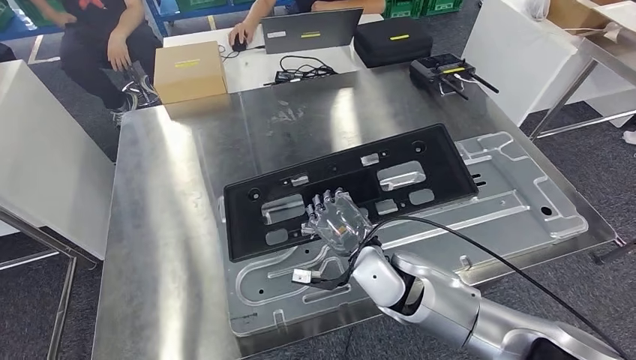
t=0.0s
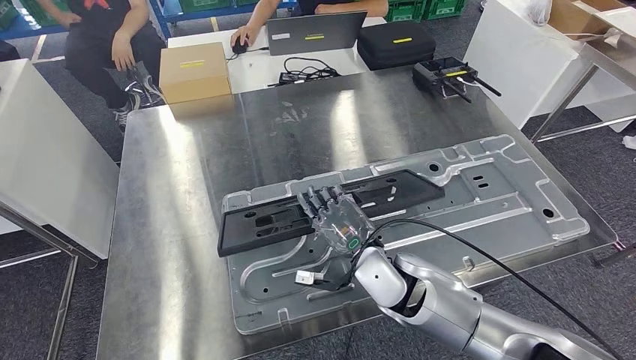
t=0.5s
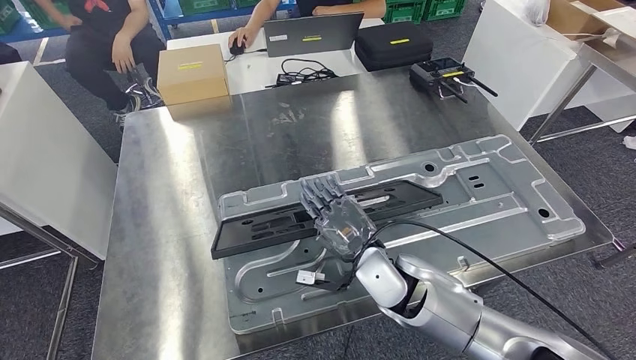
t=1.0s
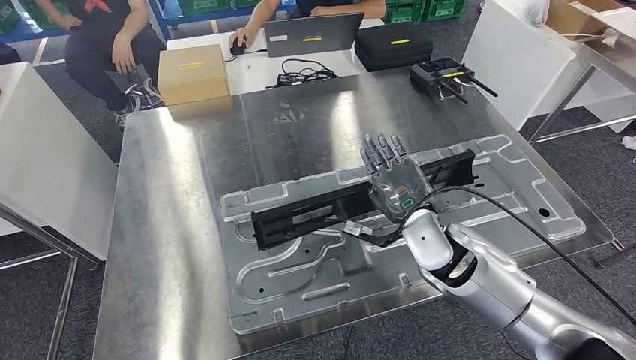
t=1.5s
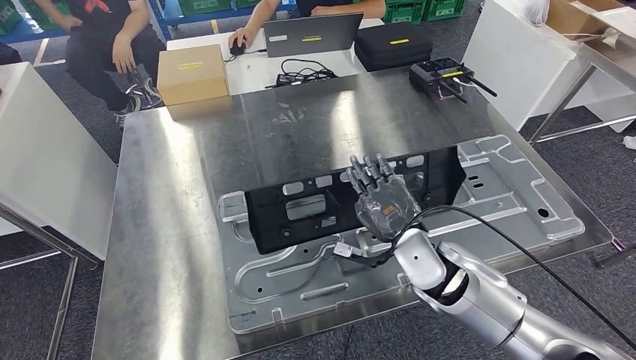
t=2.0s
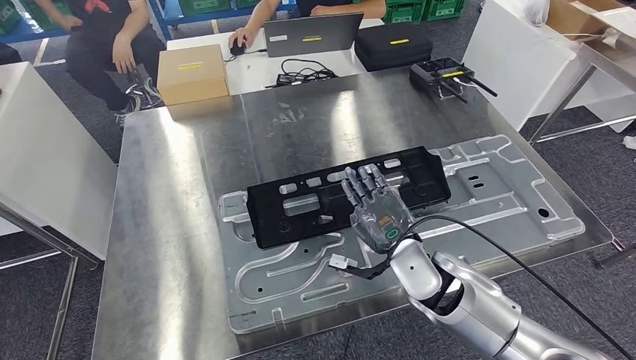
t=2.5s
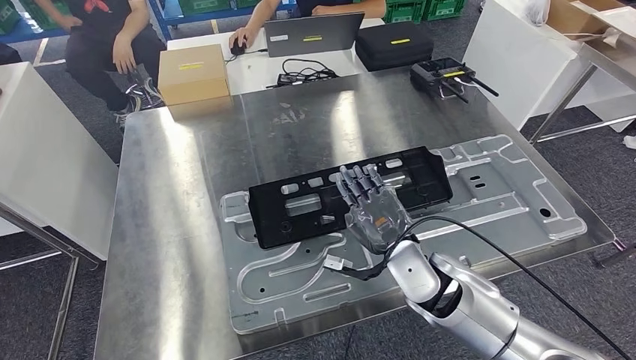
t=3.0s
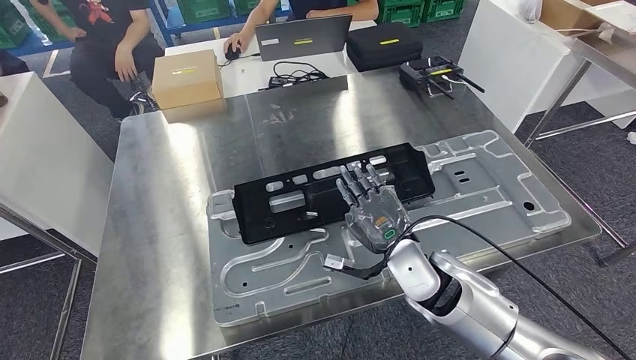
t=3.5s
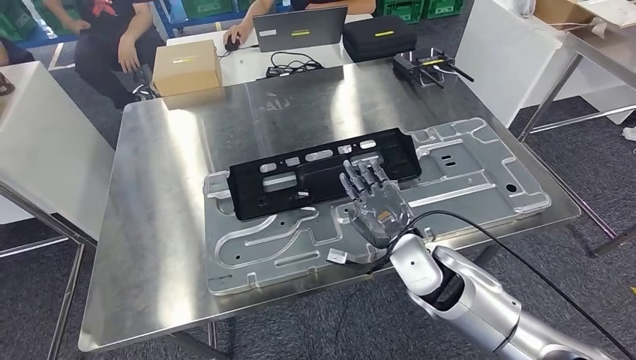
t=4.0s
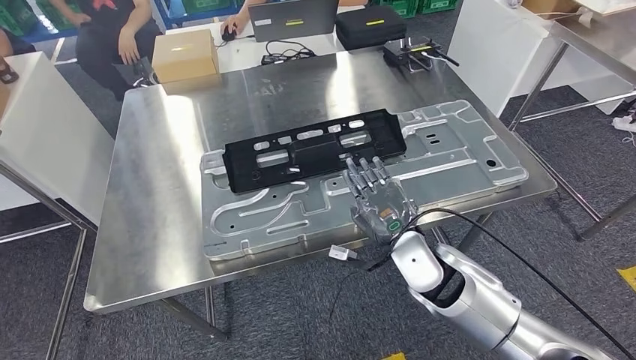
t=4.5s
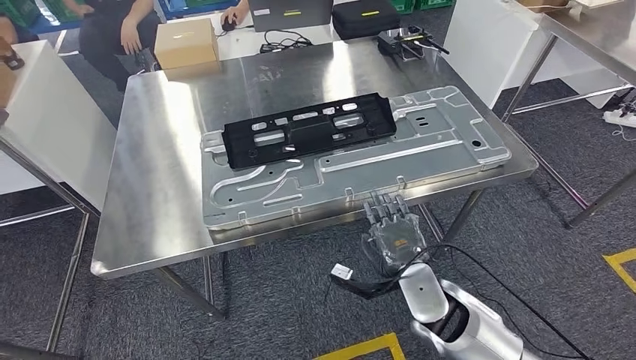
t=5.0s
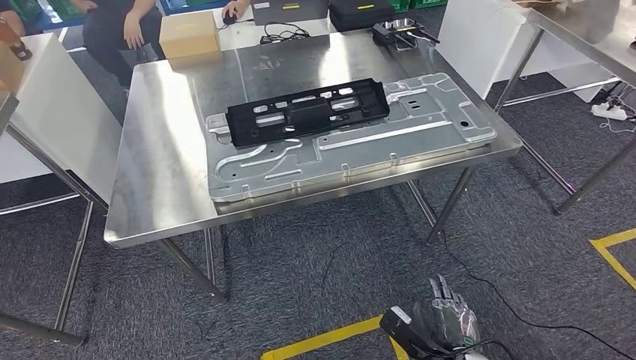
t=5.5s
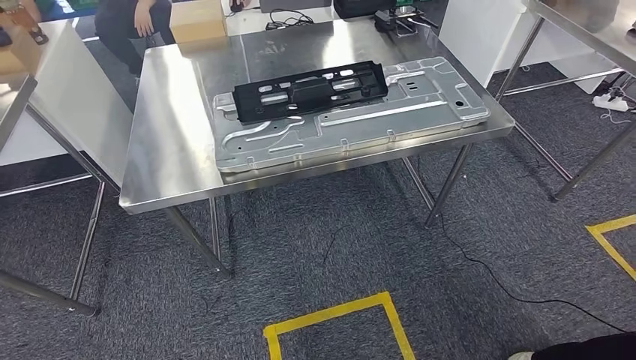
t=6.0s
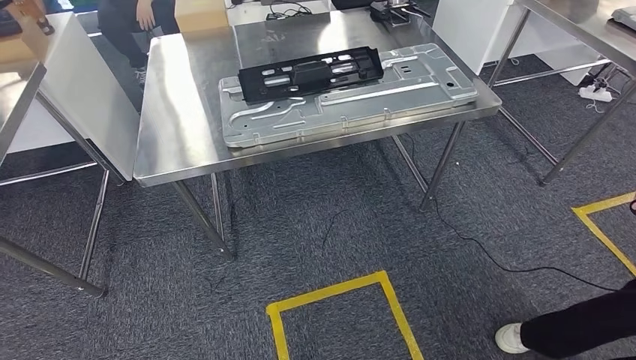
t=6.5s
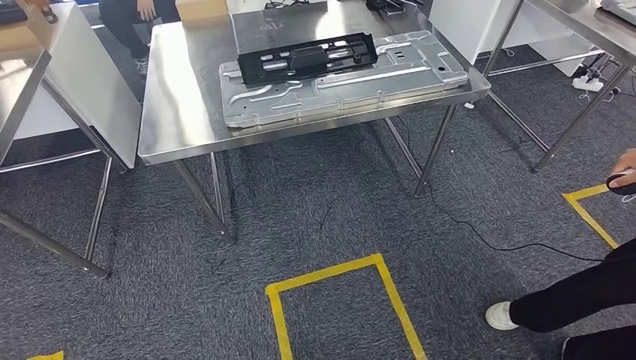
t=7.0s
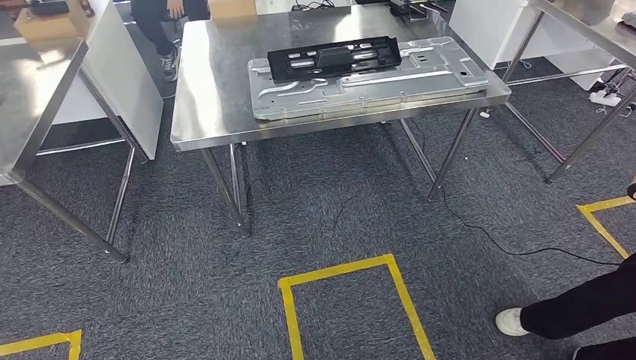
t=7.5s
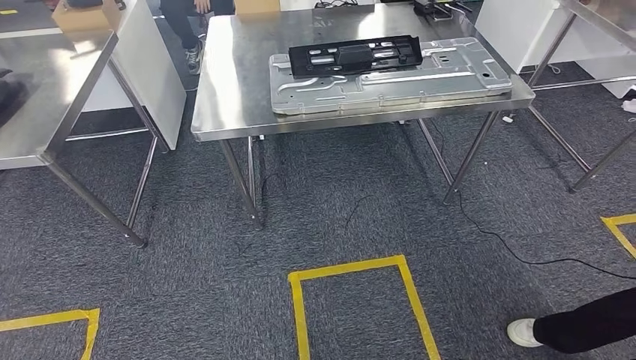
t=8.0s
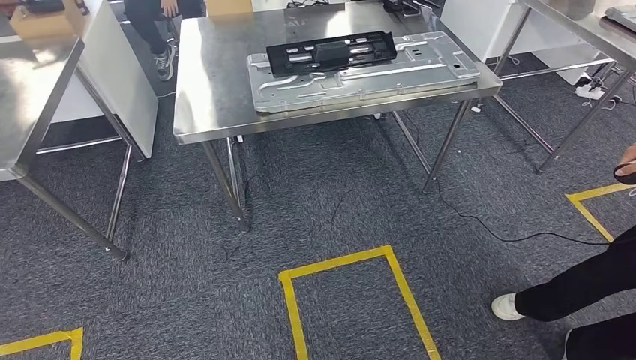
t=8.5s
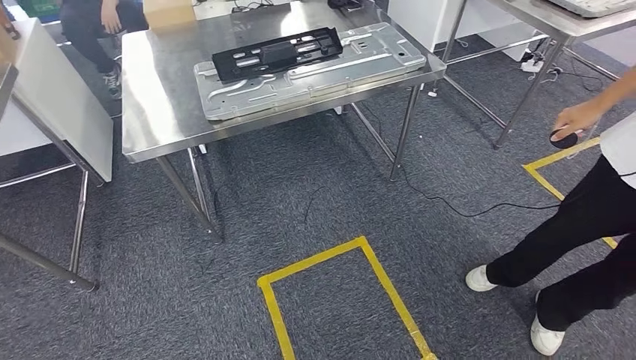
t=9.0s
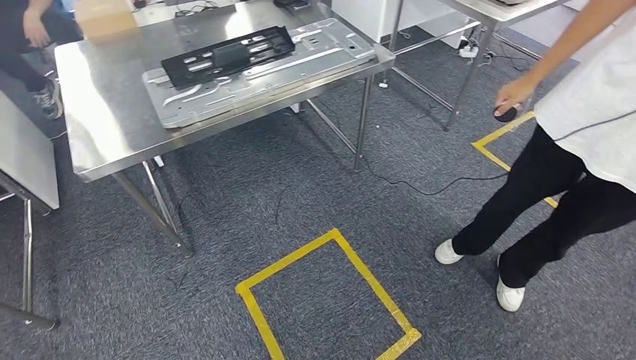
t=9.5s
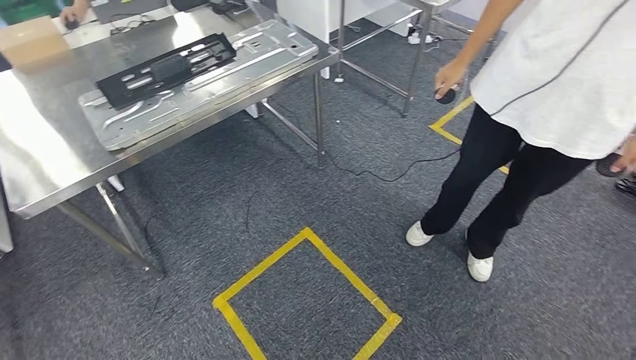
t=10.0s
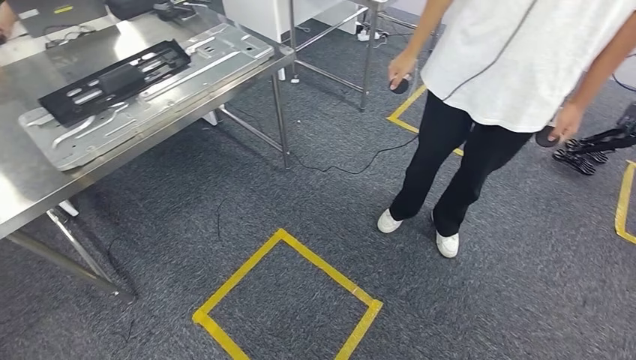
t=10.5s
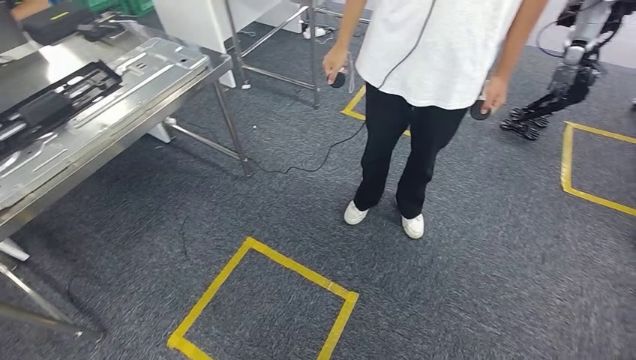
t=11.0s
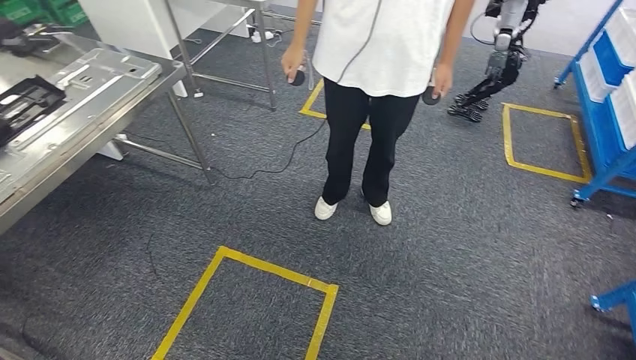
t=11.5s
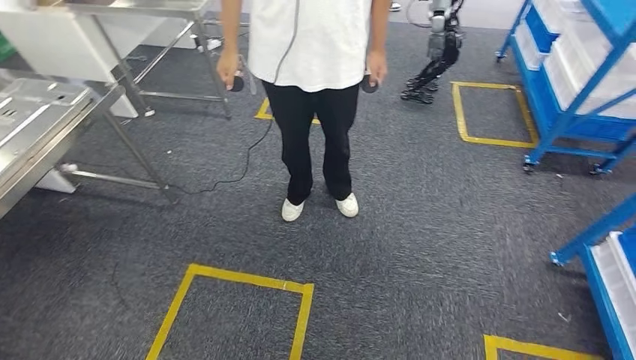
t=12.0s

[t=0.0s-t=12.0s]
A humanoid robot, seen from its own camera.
Step, t=0.0s to t=6.0s: Insert the large material into the corresponding hole on the workbench.

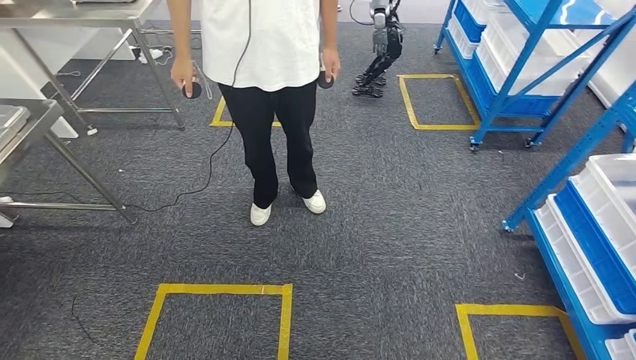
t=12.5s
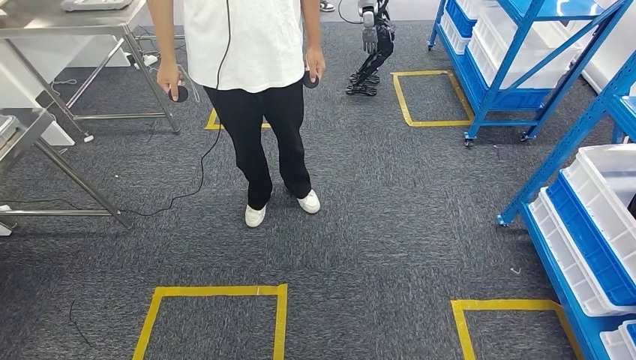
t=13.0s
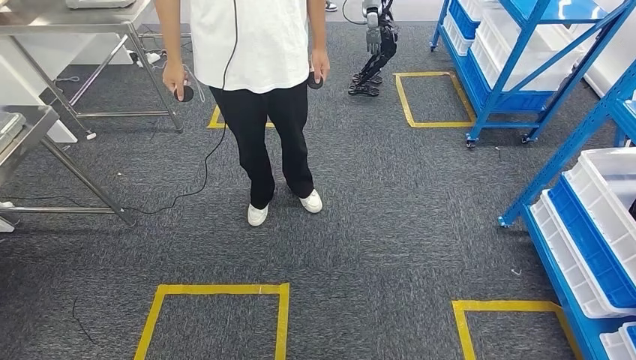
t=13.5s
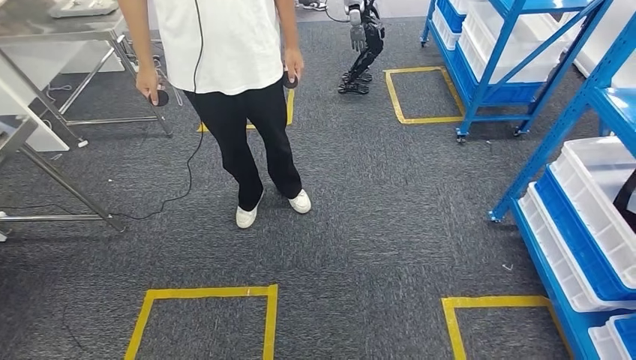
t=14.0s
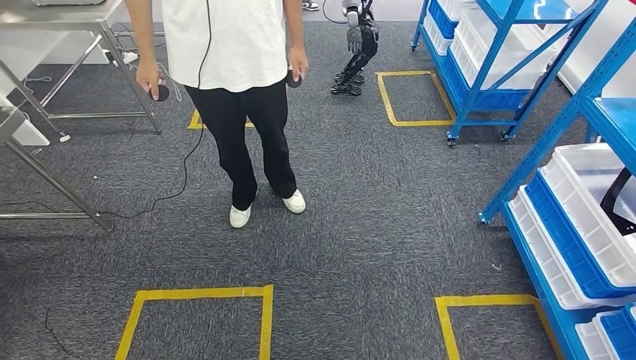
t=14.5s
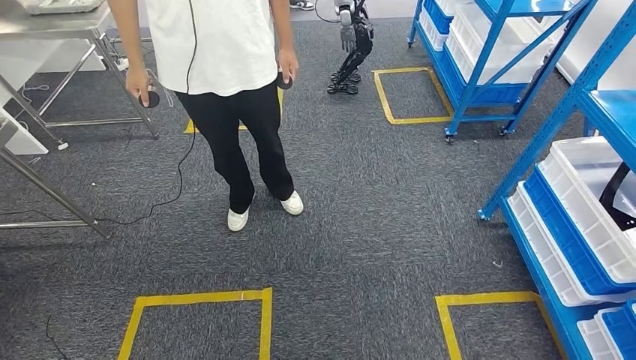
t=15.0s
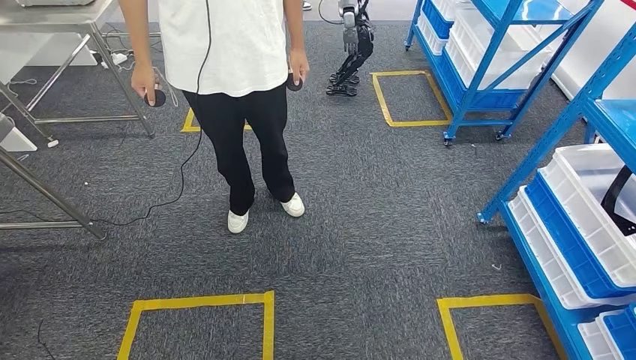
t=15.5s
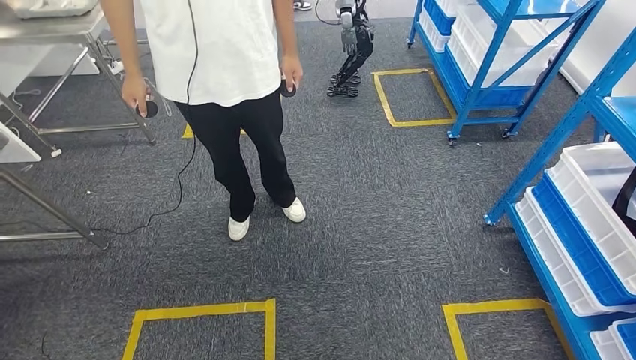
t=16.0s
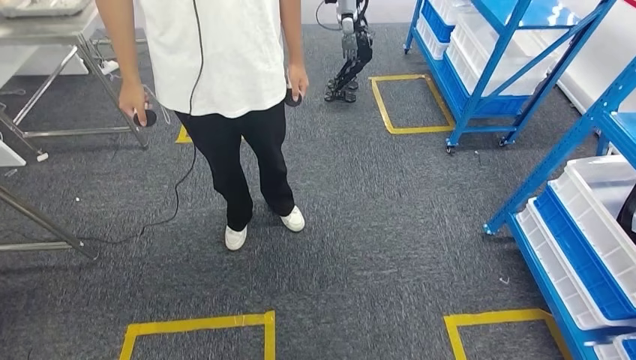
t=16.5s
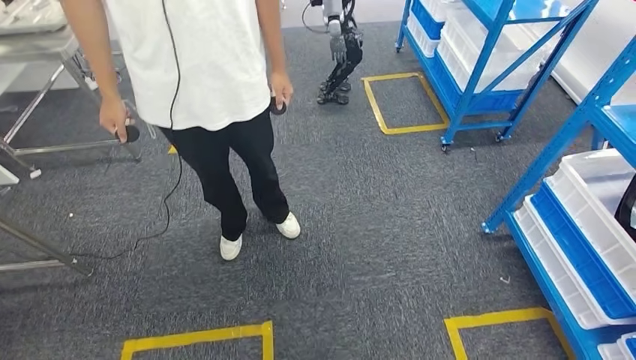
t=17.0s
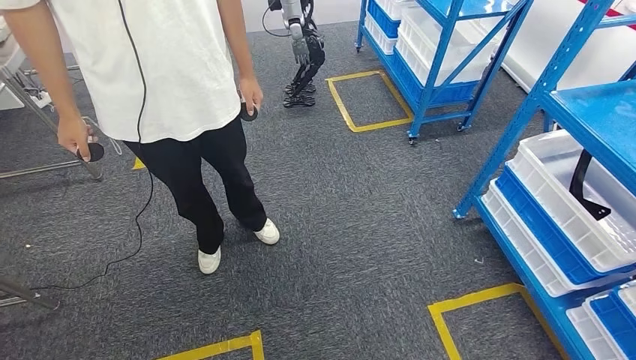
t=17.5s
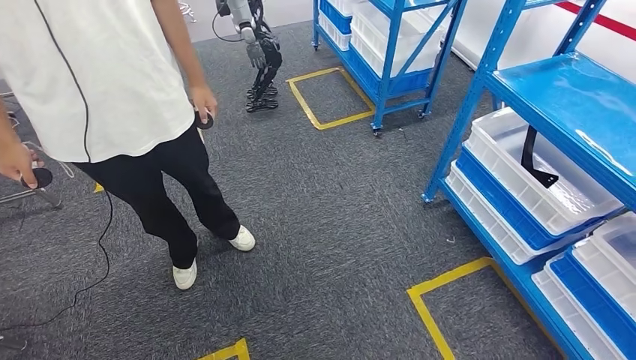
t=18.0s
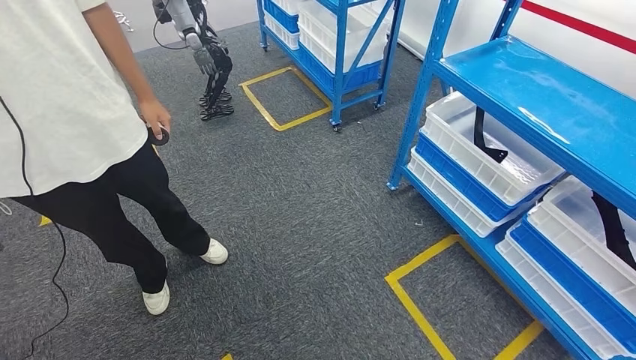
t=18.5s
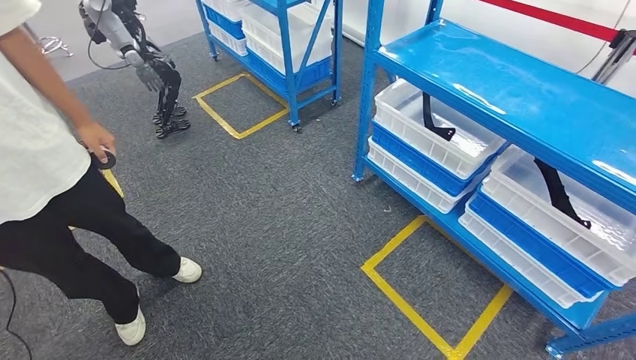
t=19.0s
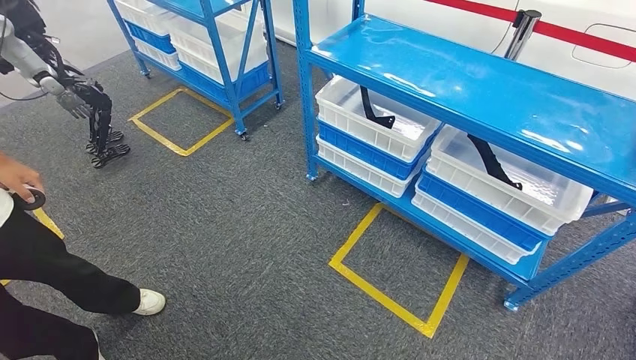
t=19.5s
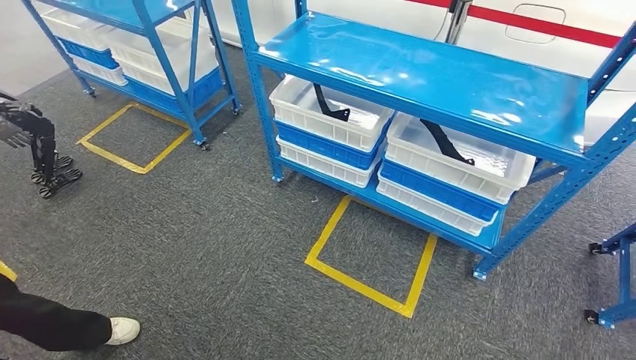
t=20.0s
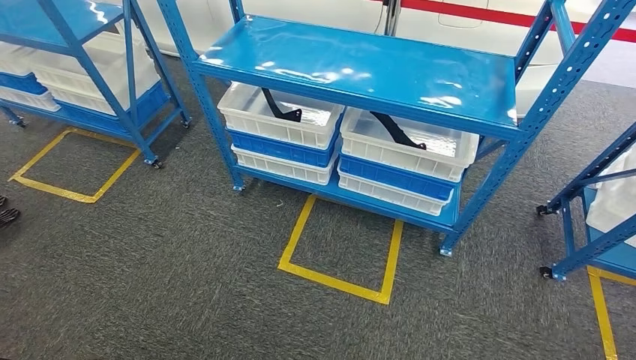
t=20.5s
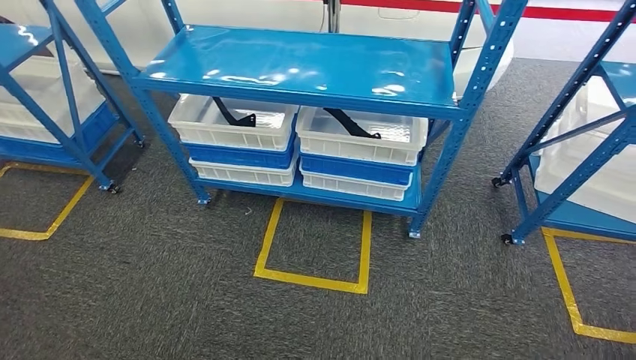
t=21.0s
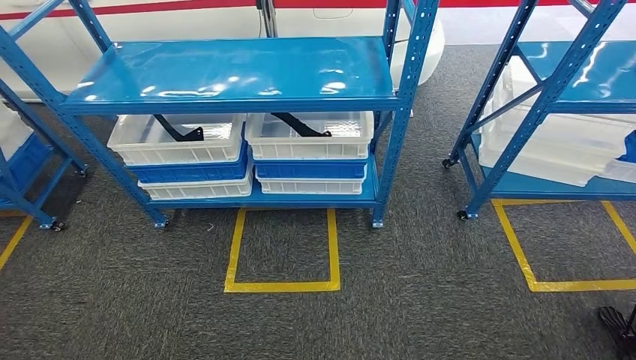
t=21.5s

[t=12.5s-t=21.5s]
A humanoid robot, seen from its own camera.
Step, t=12.5s to t=21.5s: Move to the initial position of the shelf.
